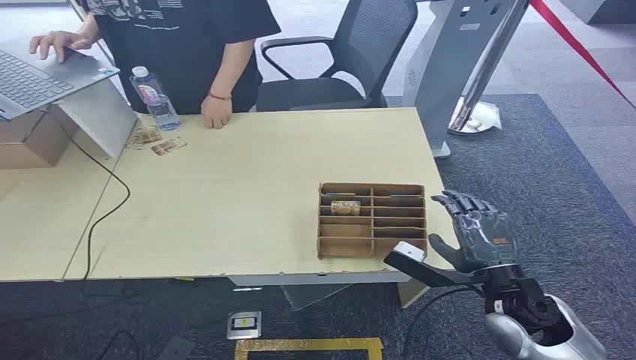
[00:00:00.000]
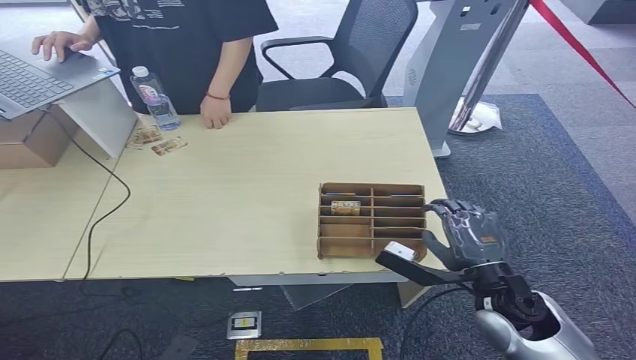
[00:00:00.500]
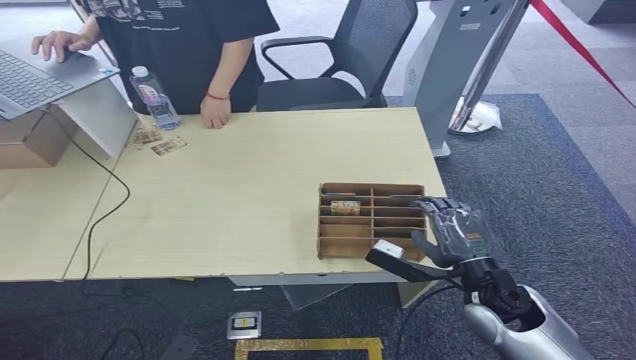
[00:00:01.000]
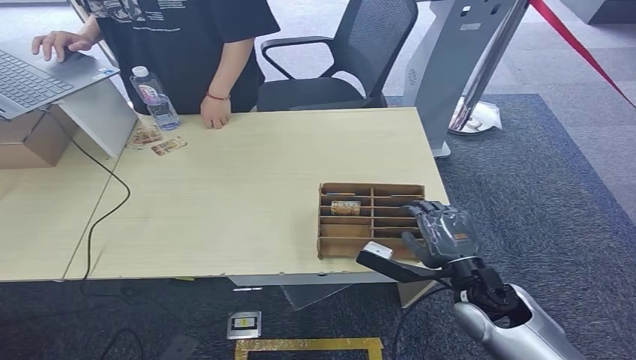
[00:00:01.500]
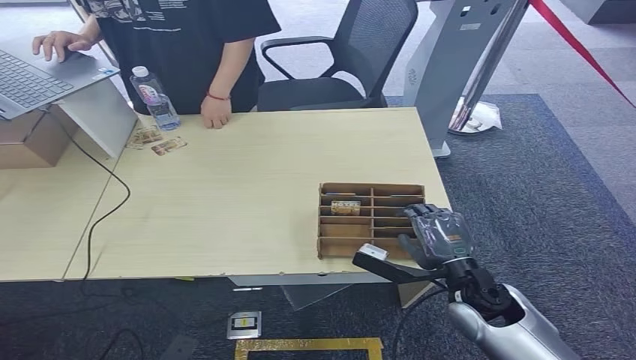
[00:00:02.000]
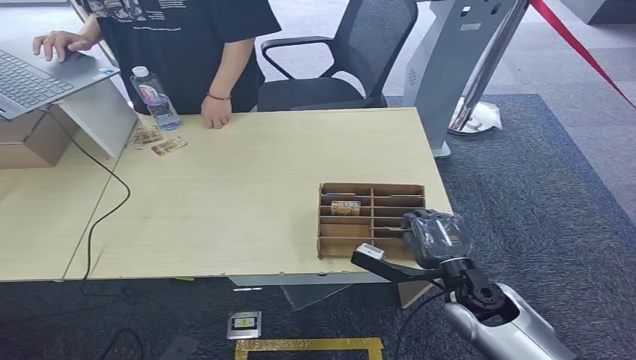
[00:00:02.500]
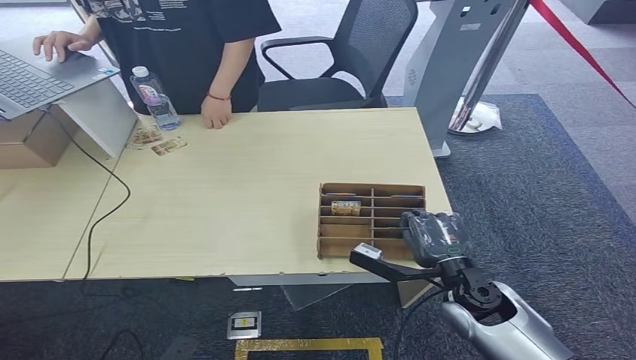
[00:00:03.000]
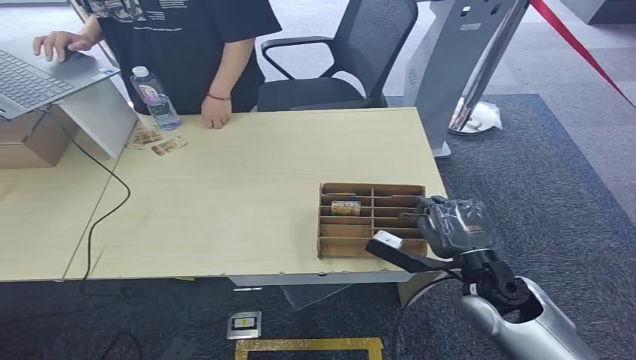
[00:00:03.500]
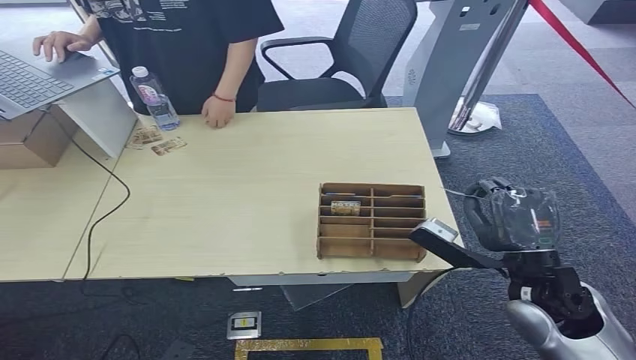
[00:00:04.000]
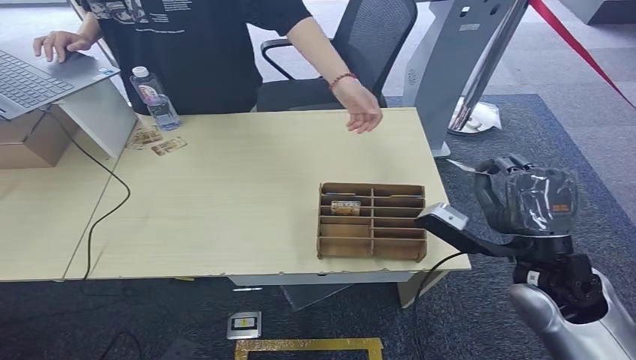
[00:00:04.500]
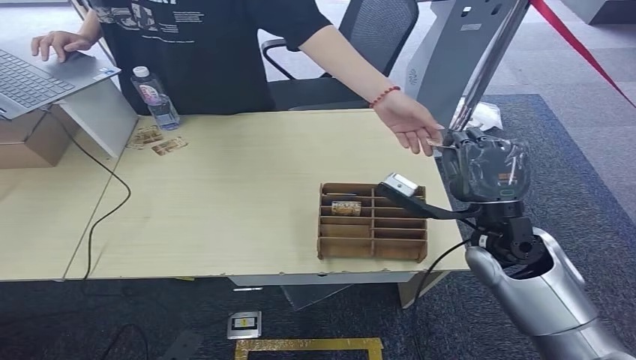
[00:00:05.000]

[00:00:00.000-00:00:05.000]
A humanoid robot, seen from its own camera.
Step, 00:00:00.000 to 00:00:04.500: Pick up the room card from the card holder.
00:00:02.500 to 00:00:05.000: The right hand goes roughly 15 cm upward and forward.
